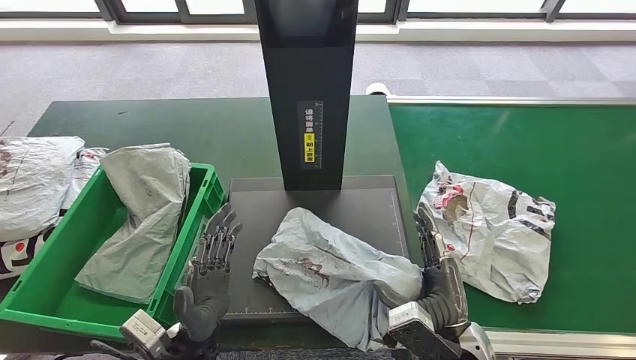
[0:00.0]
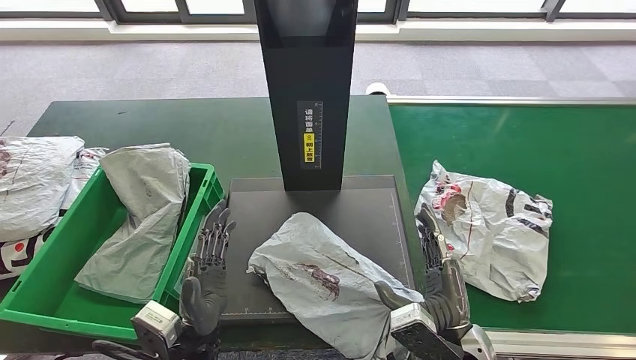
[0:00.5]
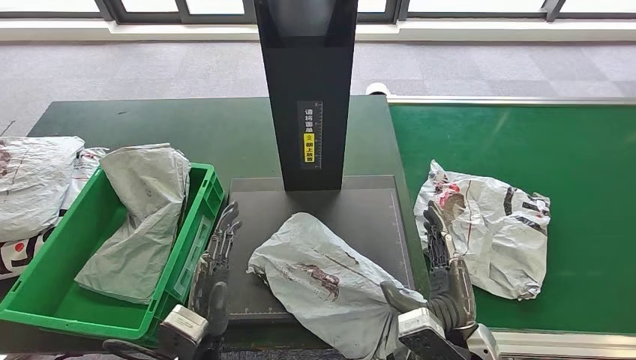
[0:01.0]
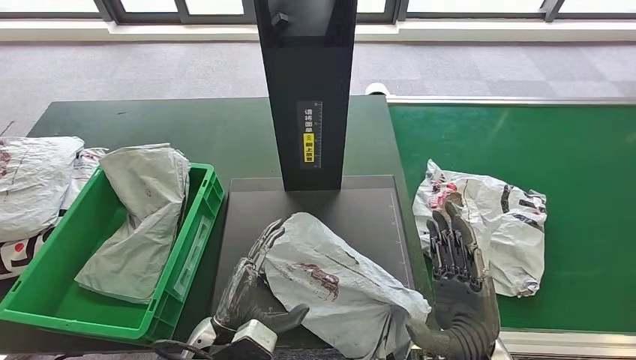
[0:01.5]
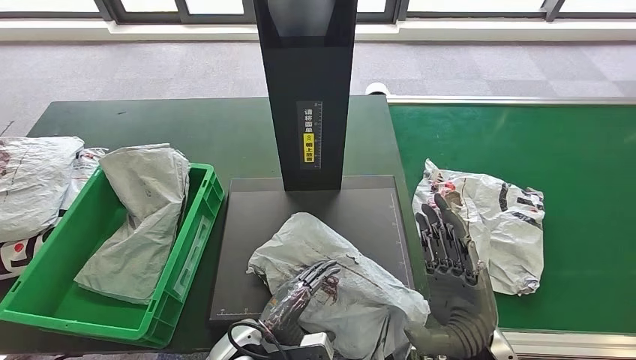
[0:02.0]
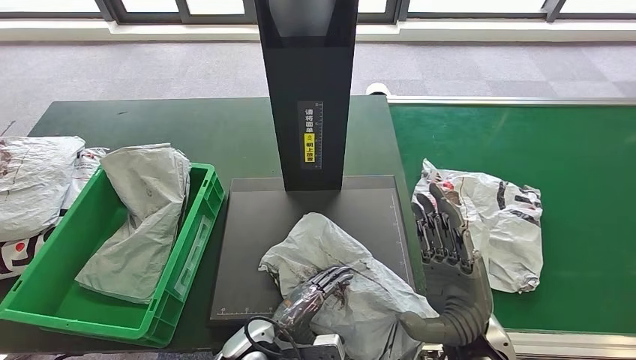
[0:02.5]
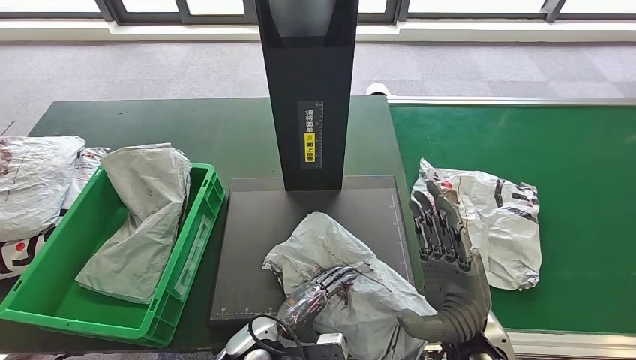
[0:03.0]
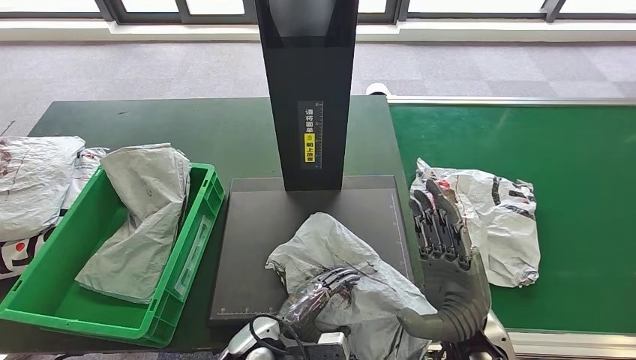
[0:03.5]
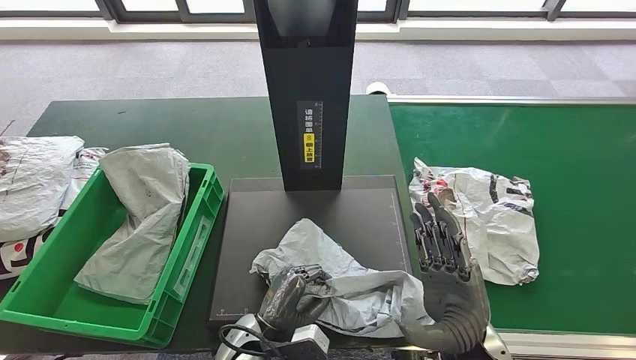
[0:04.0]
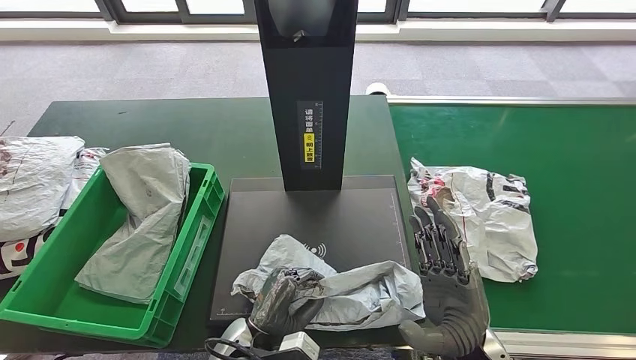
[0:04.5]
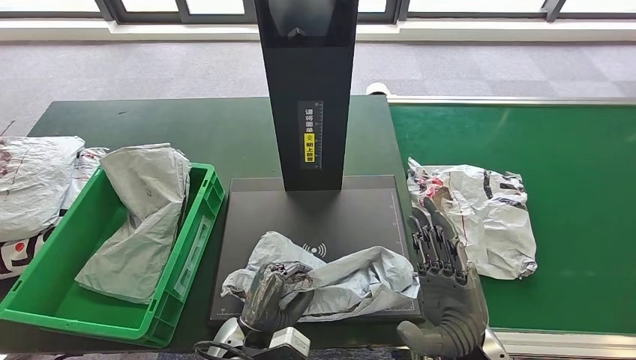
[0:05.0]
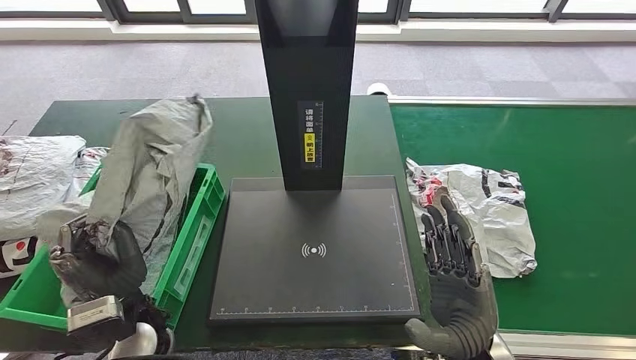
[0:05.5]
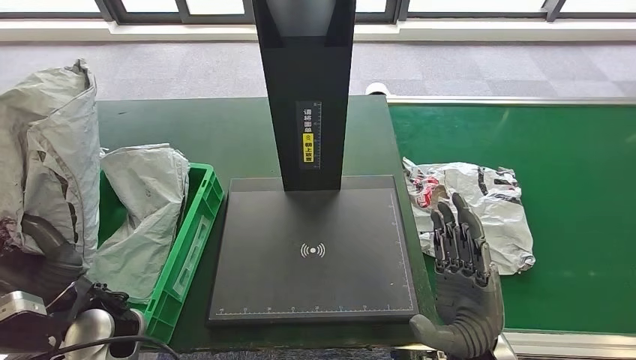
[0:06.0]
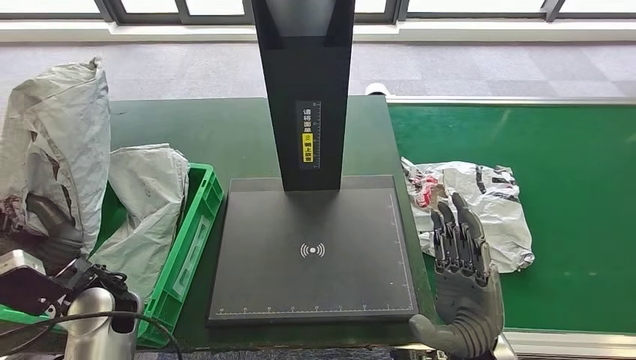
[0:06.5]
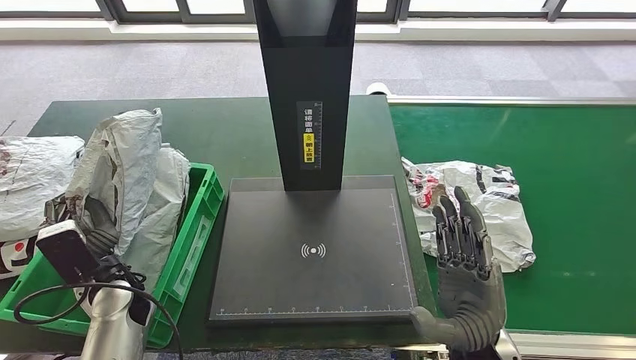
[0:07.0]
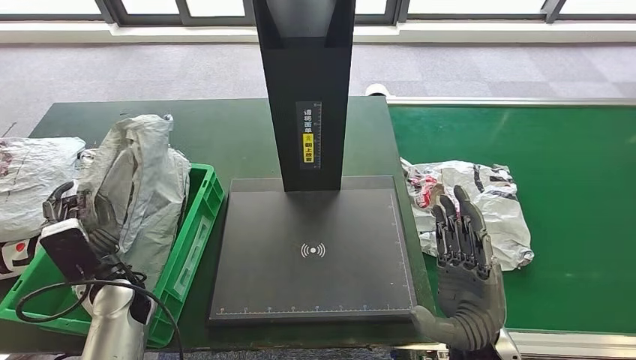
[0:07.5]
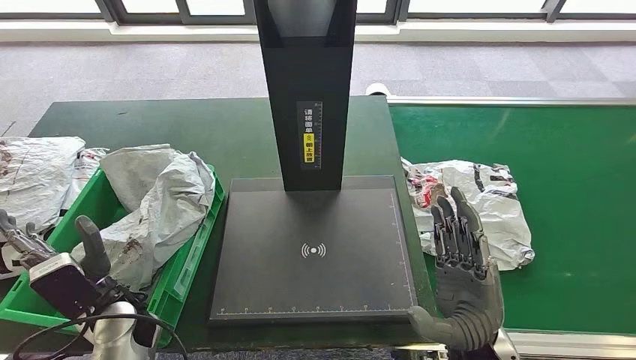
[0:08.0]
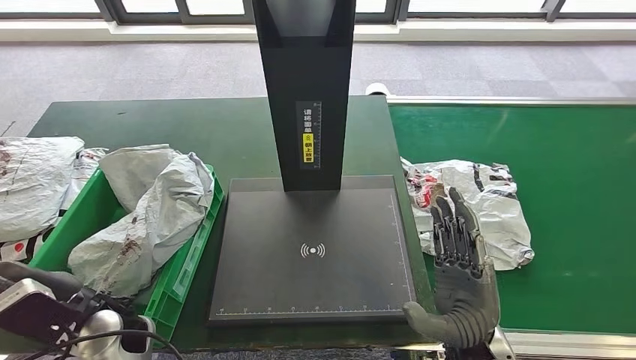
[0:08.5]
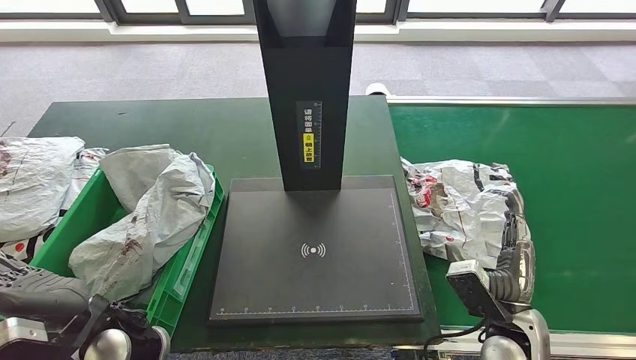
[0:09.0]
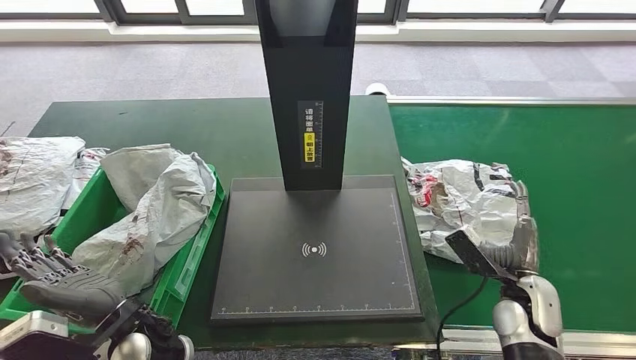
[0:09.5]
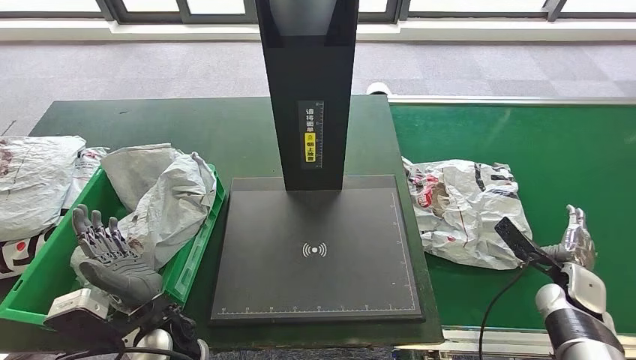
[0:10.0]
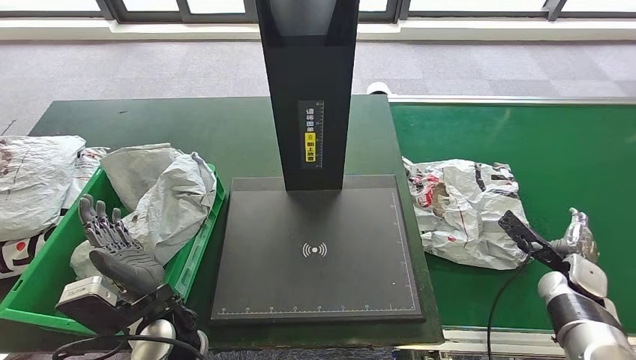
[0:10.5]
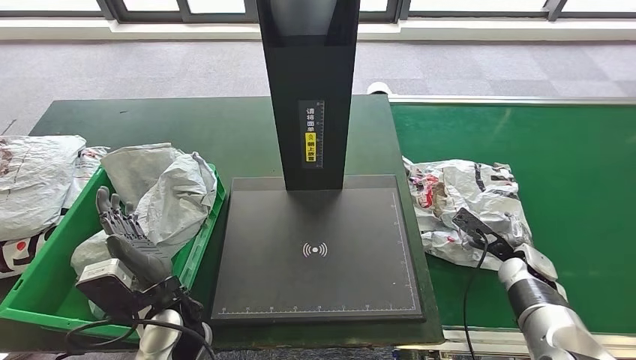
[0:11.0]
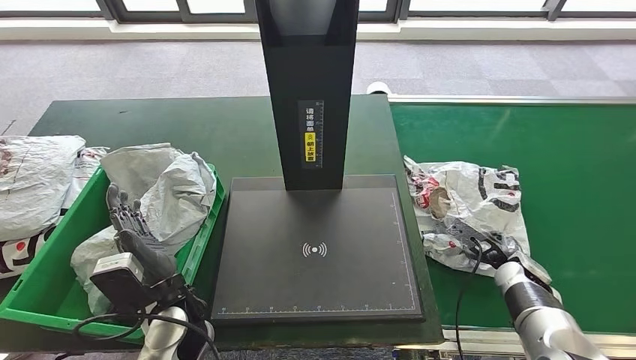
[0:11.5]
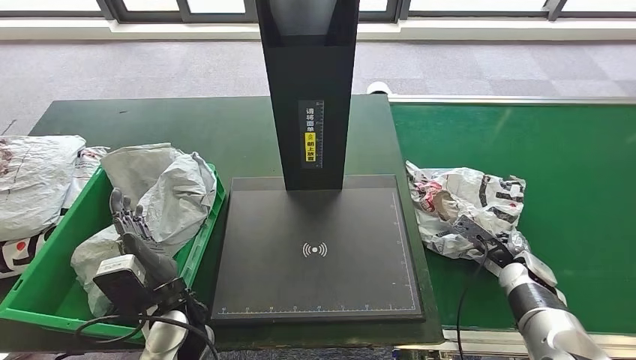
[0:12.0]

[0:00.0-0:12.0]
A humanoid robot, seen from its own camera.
Step, 0:01.5 to 0:05.0: Pick up the parcel from the inbound machine.
Step, 0:07.5 to 0:09.5: Place the parcel into the delivery box.
0:00.0 to 0:02.0: The left hand moves downward and to the right, some 10 cm.
0:02.0 to 0:04.0: The hands make only small movements.
0:06.0 to 0:08.0: The left hand moves downward, roughly 5 cm.
0:08.0 to 0:10.0: The left hand heads to the right, covering about 10 cm. The right hand travels to the right, forward and downward by approximately 30 cm.
0:10.0 to 0:12.0: The right hand moves to the left, about 5 cm.

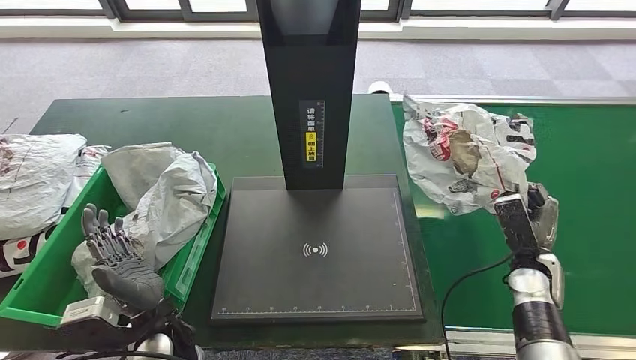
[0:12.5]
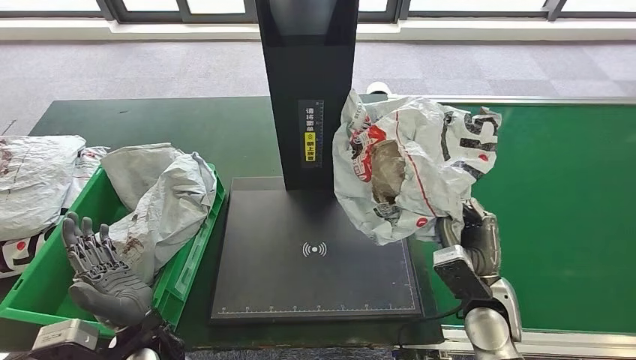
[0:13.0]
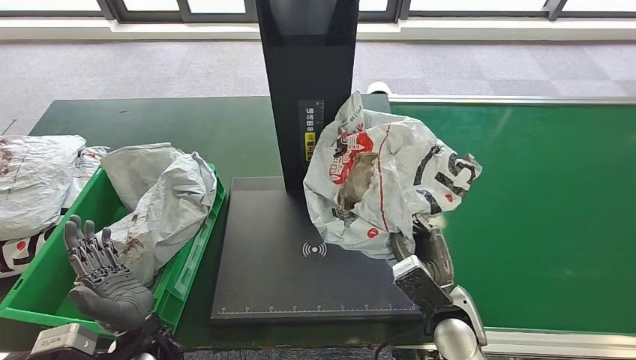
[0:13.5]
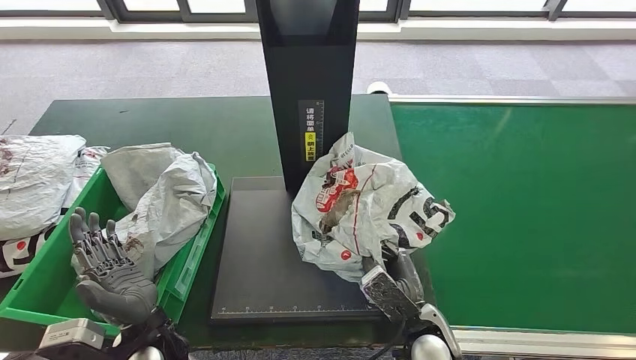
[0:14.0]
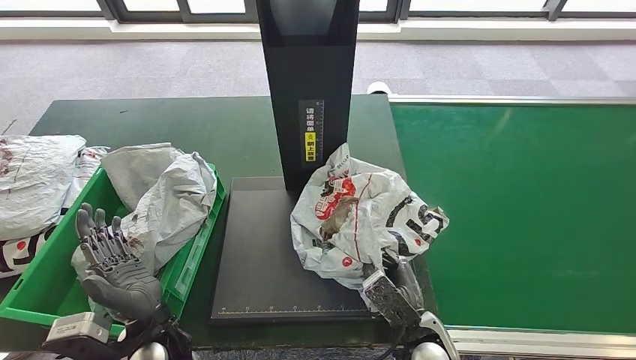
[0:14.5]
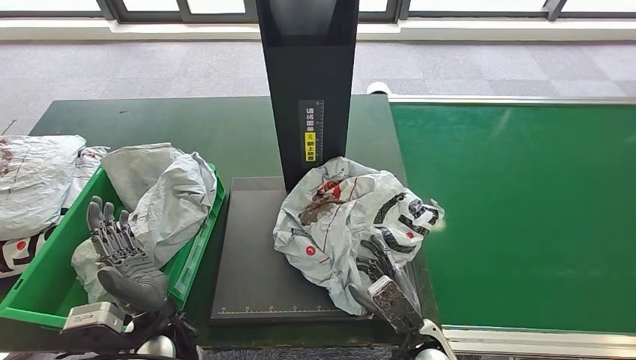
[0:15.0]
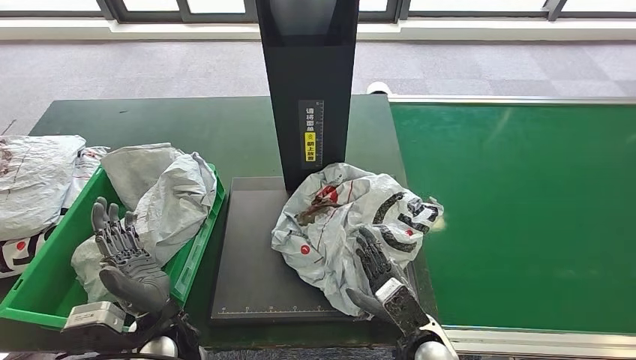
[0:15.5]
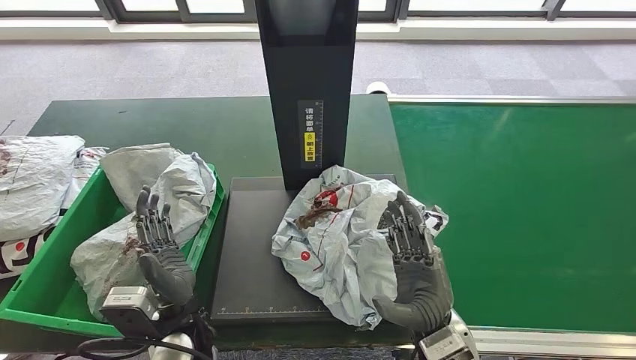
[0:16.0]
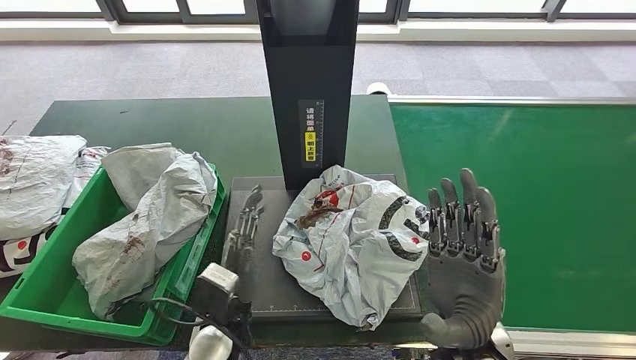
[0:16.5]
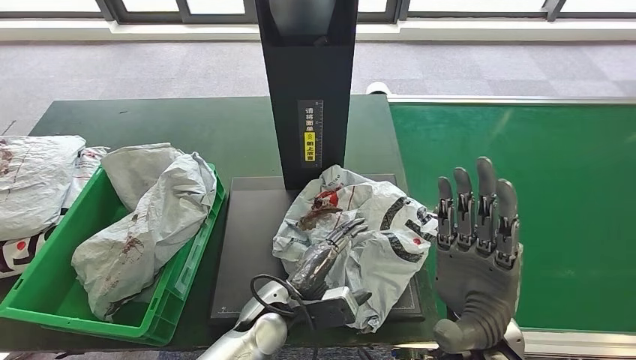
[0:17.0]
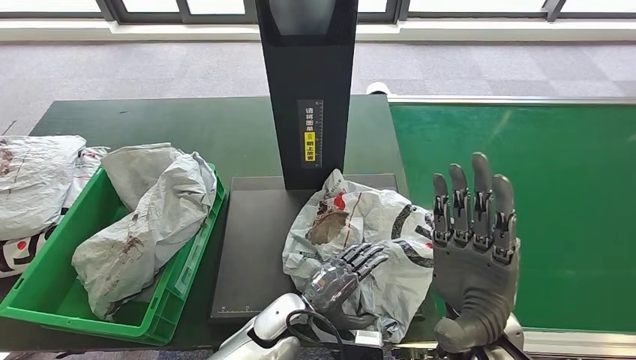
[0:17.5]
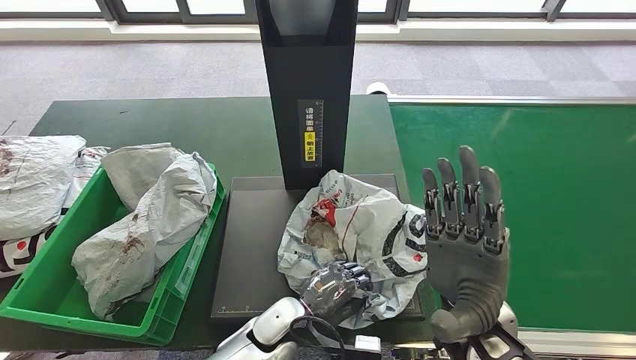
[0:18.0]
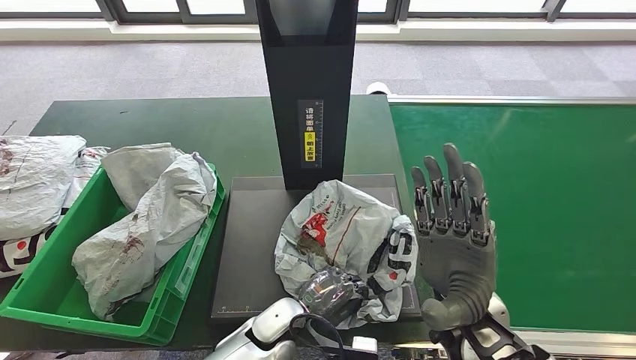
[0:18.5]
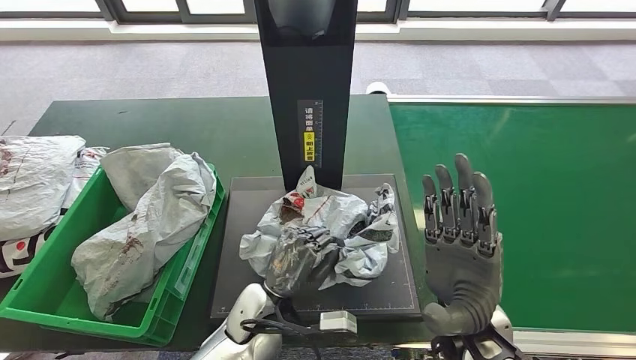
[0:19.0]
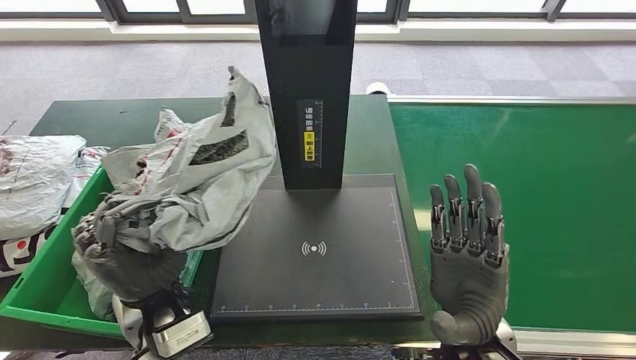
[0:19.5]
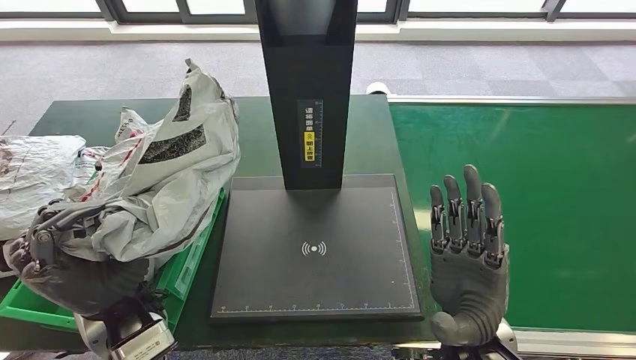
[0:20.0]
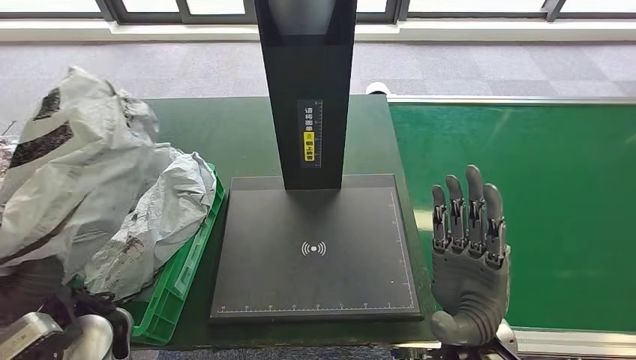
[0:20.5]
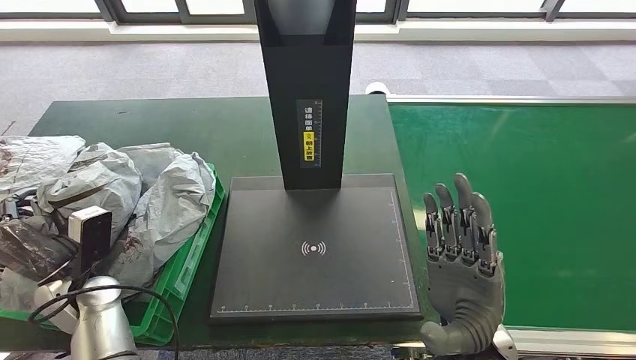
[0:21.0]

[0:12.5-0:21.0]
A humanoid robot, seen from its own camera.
Step, 0:13.5 to 0:16.0: Place the parcel onto the inbound machine.
Step, 0:17.0 to 0:20.0: Pick up the parcel from the inbound machine.
0:14.5 to 0:16.5: The left hand goes approximately 10 cm to the right. Meanwhile the right hand moves upward, approximately 15 cm.
0:16.5 to 0:19.0: The left hand heads to the right, covering approximately 5 cm.
